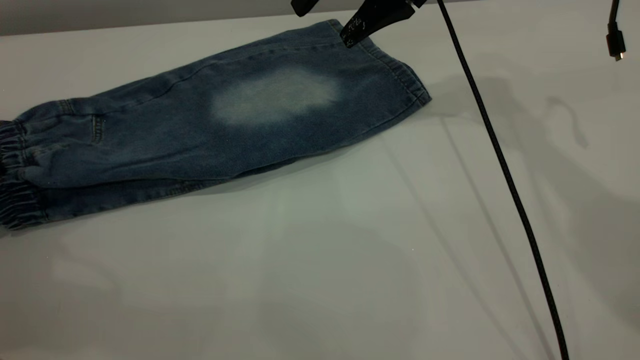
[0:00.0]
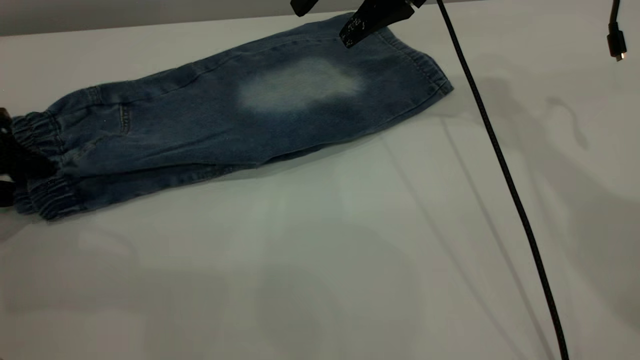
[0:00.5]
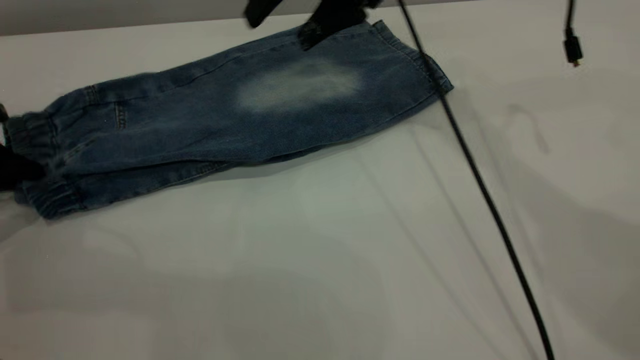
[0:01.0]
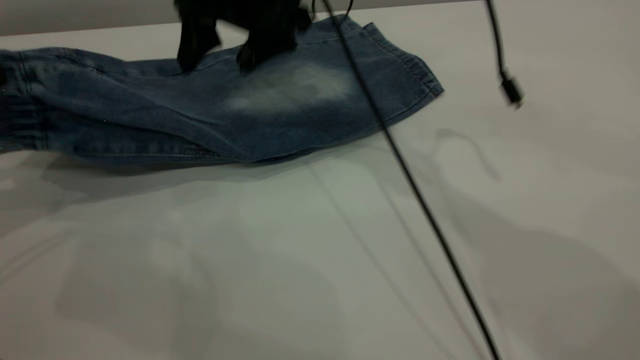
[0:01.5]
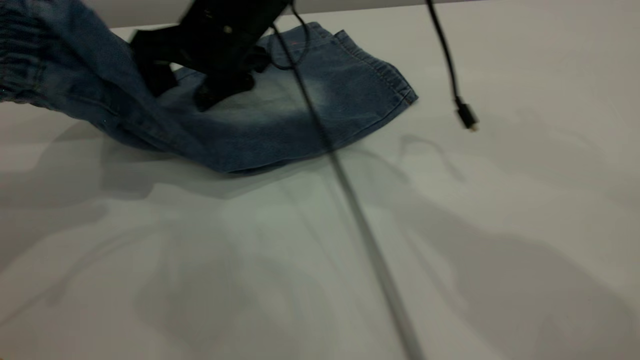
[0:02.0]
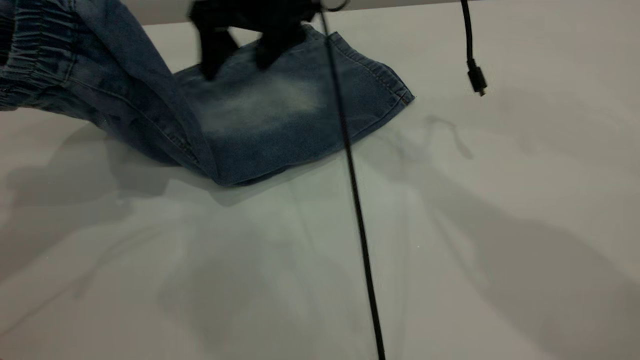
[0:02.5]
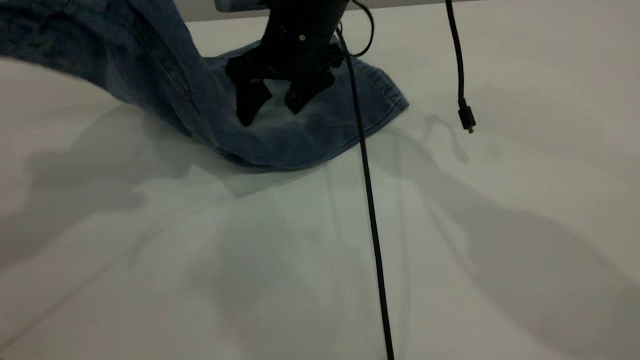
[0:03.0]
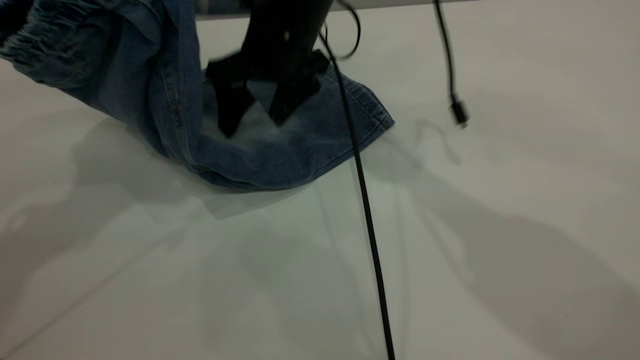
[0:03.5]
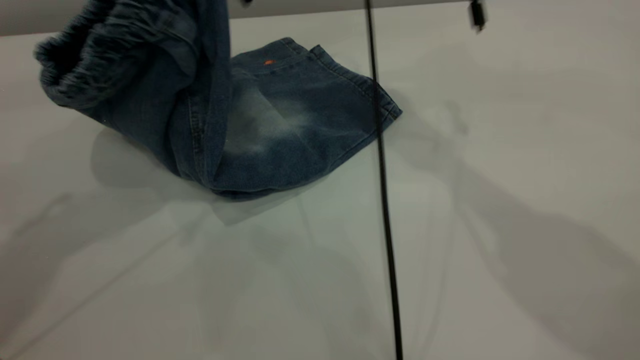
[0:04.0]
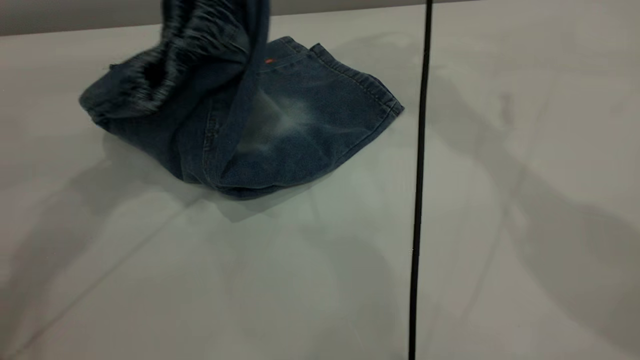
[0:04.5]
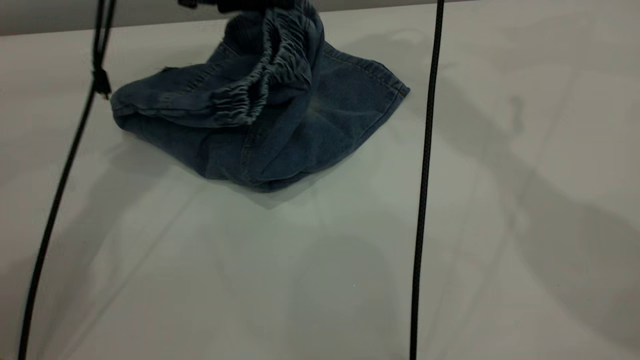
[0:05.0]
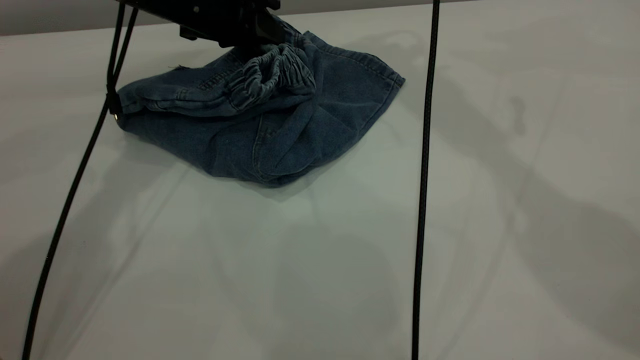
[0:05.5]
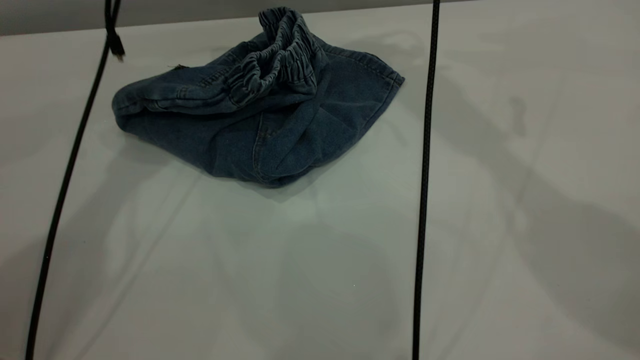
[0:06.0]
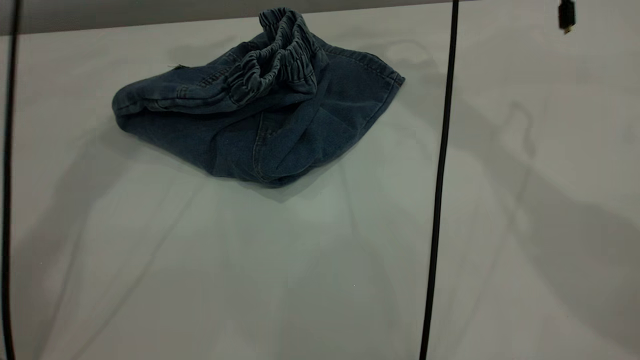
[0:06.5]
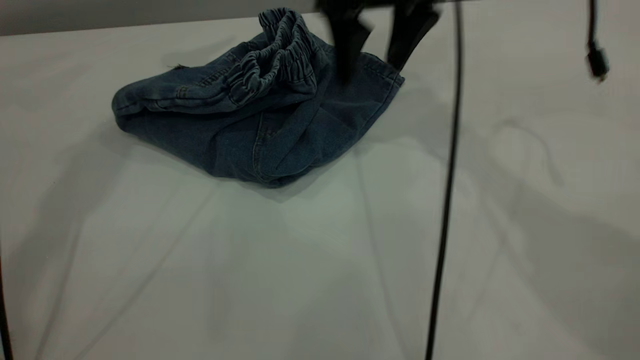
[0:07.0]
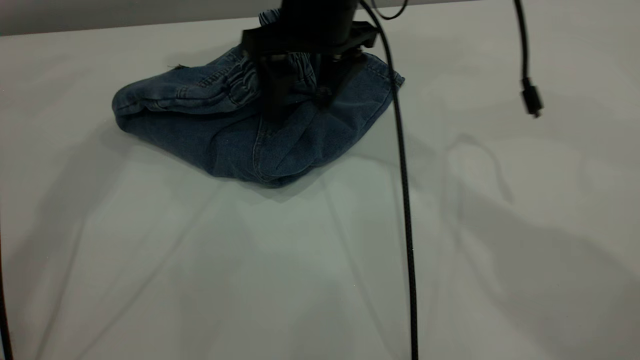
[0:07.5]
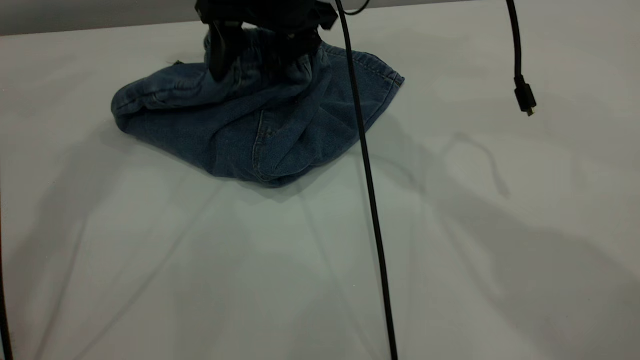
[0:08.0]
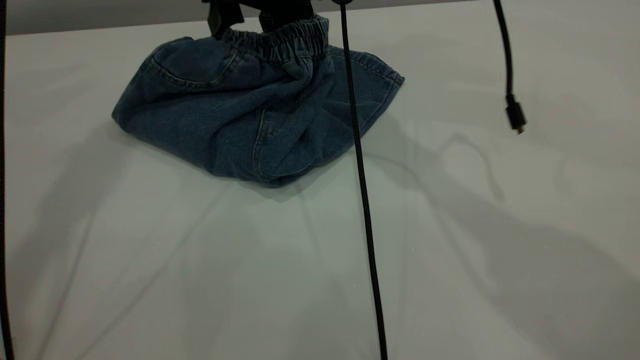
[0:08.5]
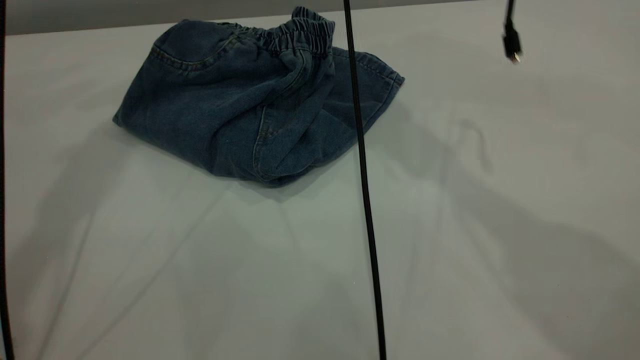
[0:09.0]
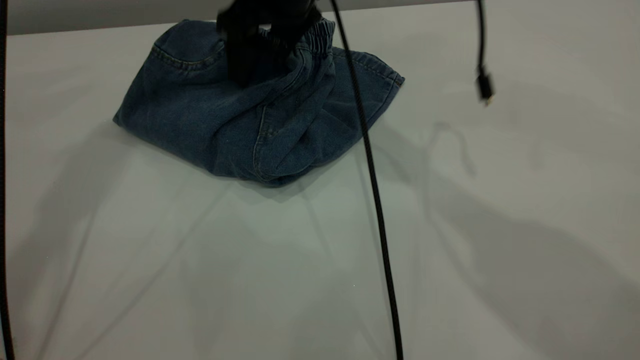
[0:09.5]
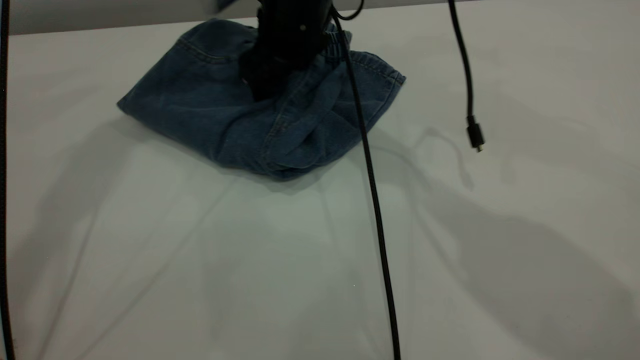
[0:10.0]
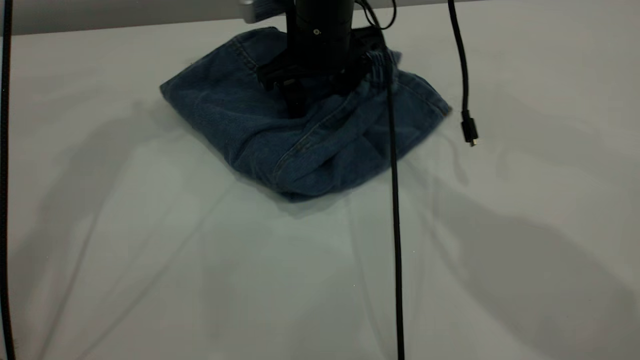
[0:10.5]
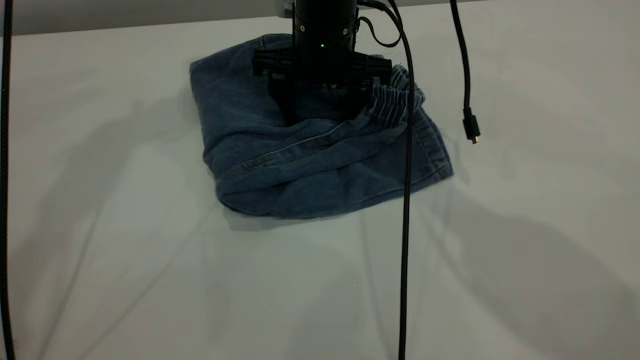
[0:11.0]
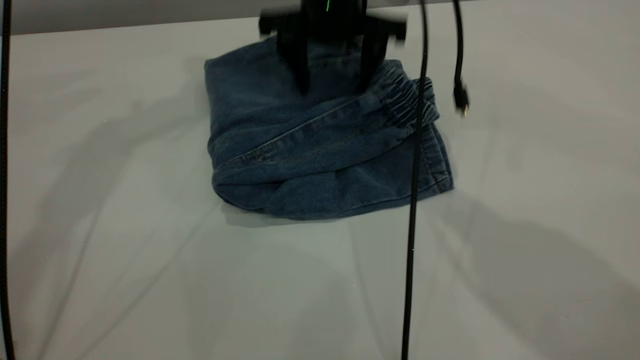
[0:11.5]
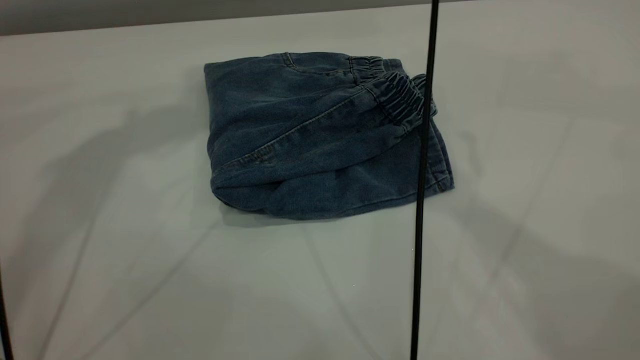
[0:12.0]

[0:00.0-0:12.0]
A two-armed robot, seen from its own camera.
Step, 0:00.0 to 0:06.0: Fold the pants from left to right.
0:00.0 to 0:02.0: The left gripper heads upward and to the right, covering about 20 cm, and closes its fingers. The right gripper shifts some 15 cm to the left.
0:02.0 to 0:04.0: The left gripper is displaced to the right by roughly 10 cm; the right gripper shifts about 15 cm upward, to the right and forward.
0:04.0 to 0:06.0: The right gripper shifts about 10 cm upward and to the right, while the left gripper travels forward and downward by approximately 20 cm, and opens its fingers.
0:06.0 to 0:08.0: The left gripper moves upward, roughly 15 cm. Meanwhile the right gripper is displaced downward, to the left and backward by approximately 20 cm.
0:08.0 to 0:10.0: The right gripper moves downward, approximately 5 cm.
0:10.0 to 0:12.0: The right gripper shifts approximately 20 cm upward. The left gripper shifts by roughly 5 cm.

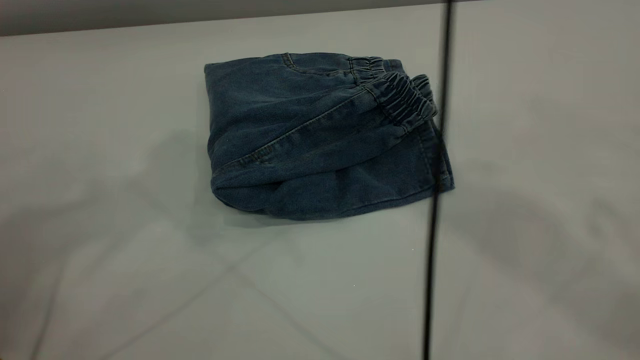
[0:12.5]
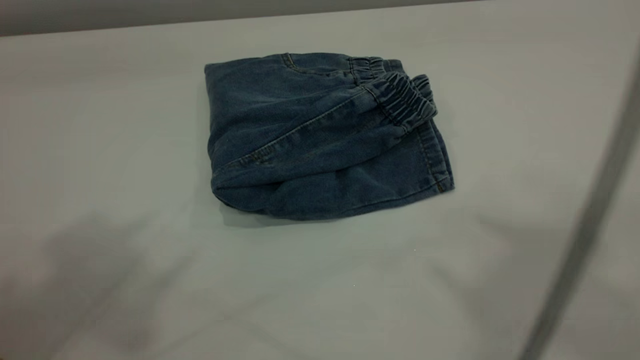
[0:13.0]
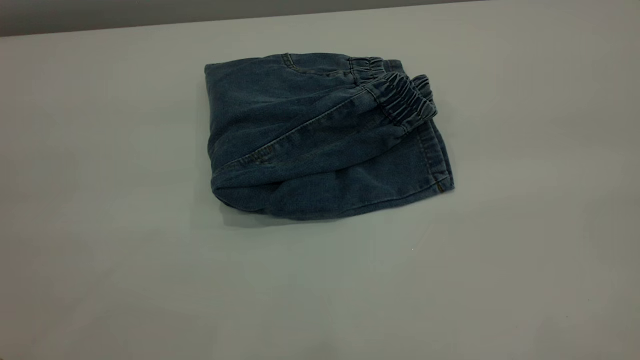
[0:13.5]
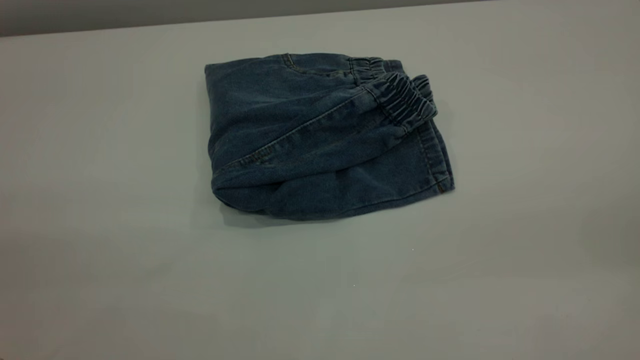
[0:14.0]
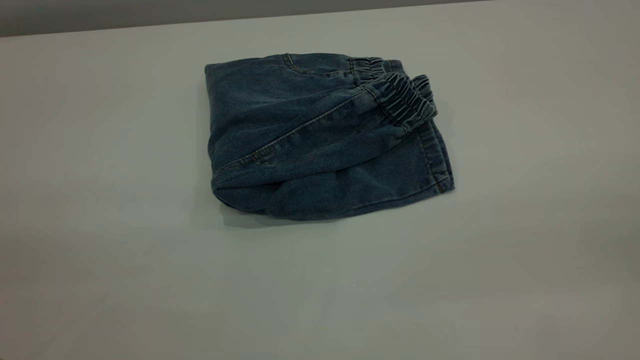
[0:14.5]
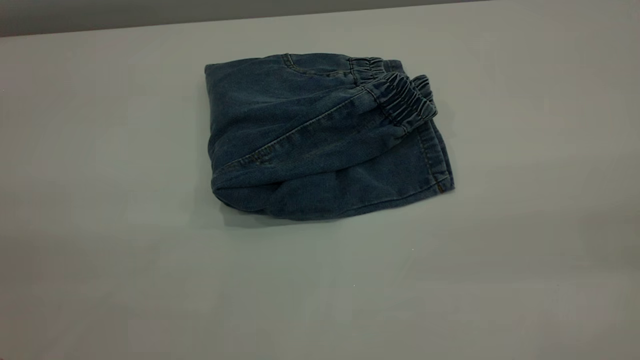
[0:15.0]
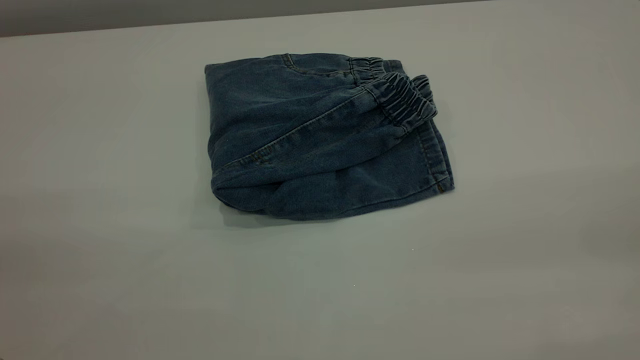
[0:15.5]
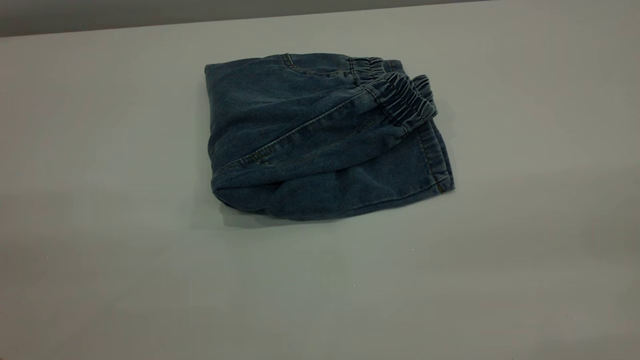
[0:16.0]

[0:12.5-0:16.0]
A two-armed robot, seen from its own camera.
0:12.5 to 0:14.5: The right gripper goes approximately 40 cm backward, downward and to the right.

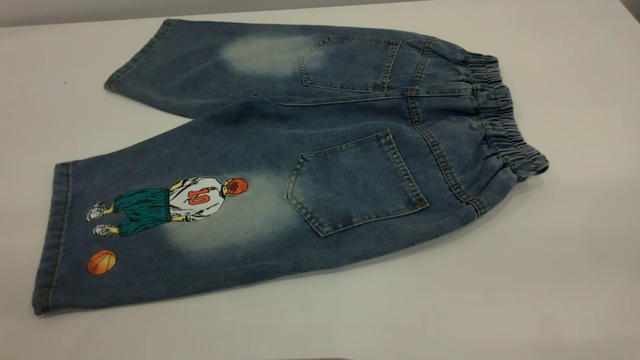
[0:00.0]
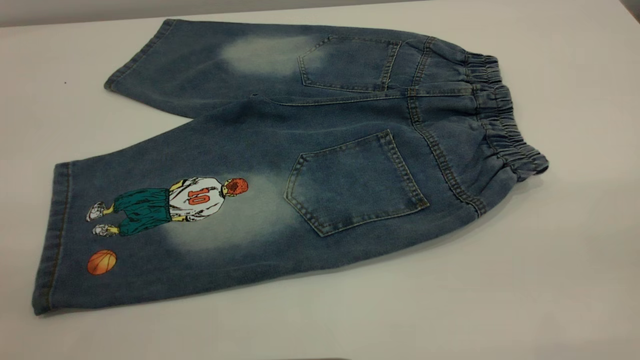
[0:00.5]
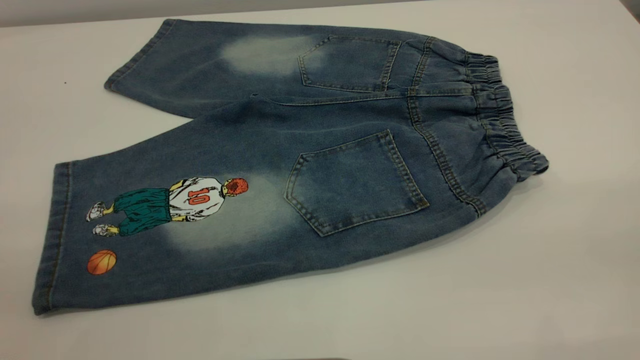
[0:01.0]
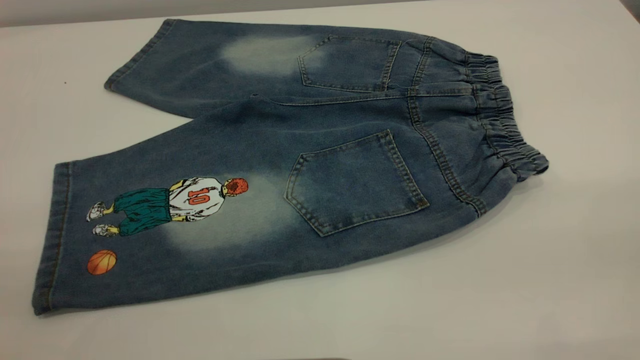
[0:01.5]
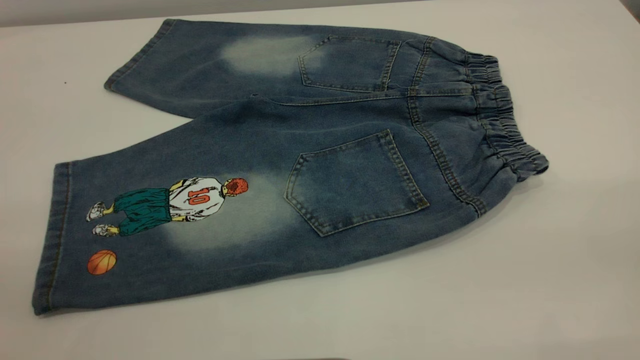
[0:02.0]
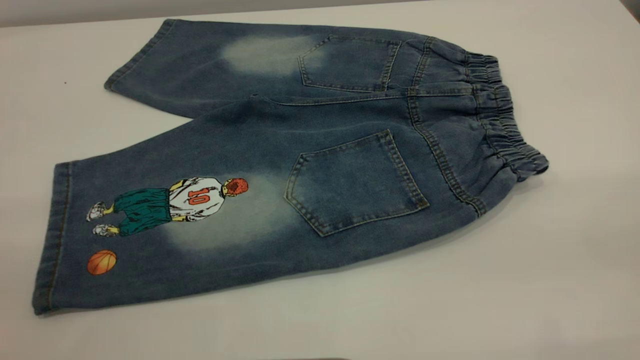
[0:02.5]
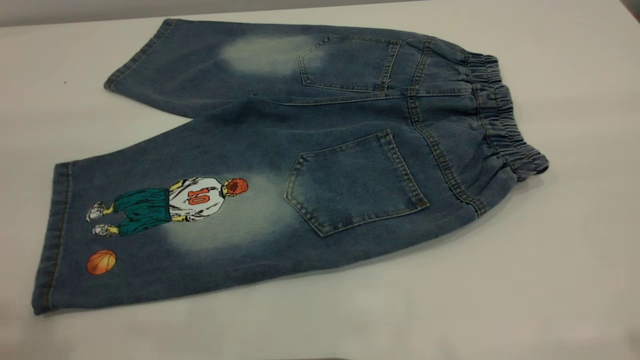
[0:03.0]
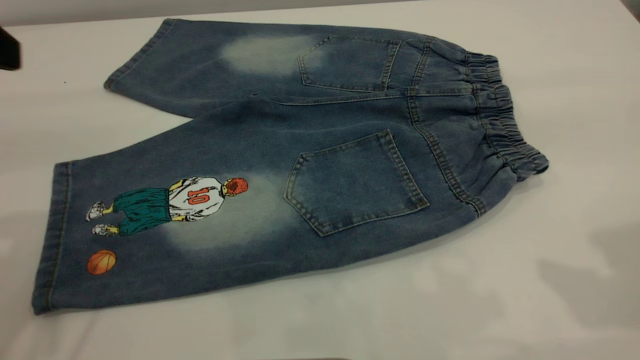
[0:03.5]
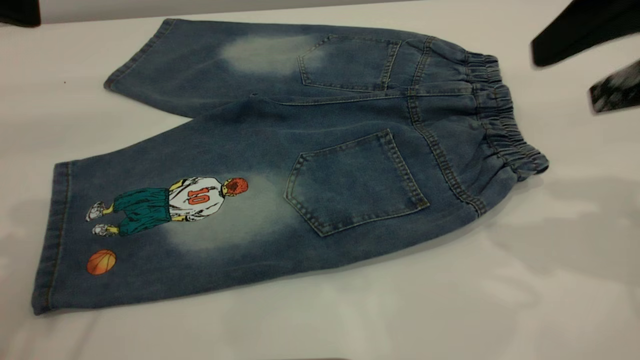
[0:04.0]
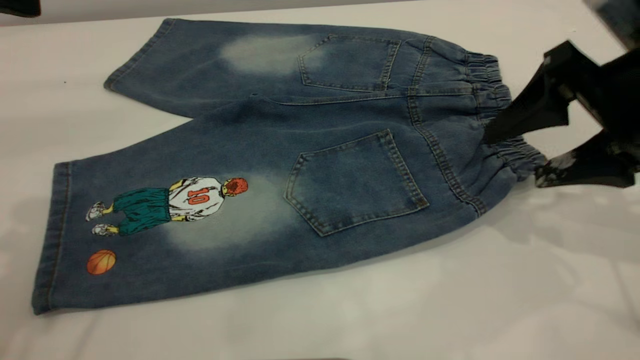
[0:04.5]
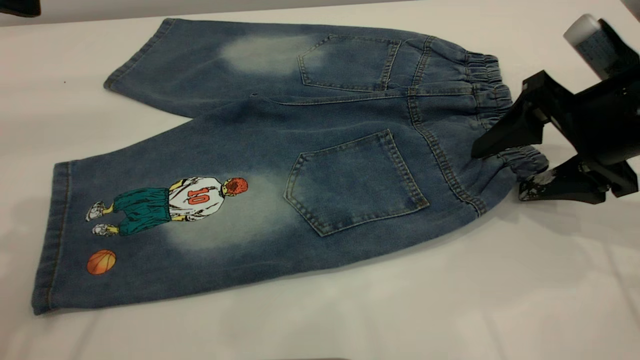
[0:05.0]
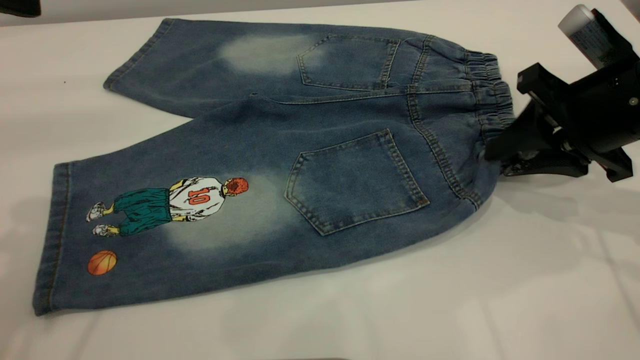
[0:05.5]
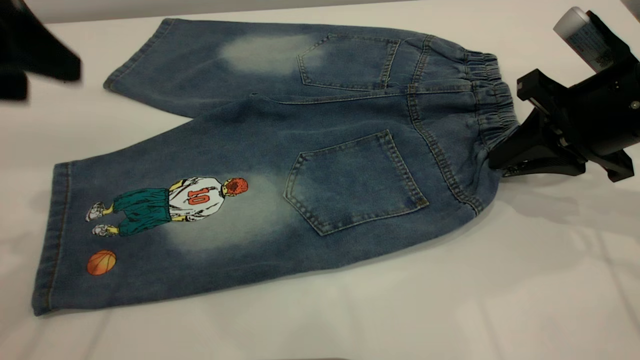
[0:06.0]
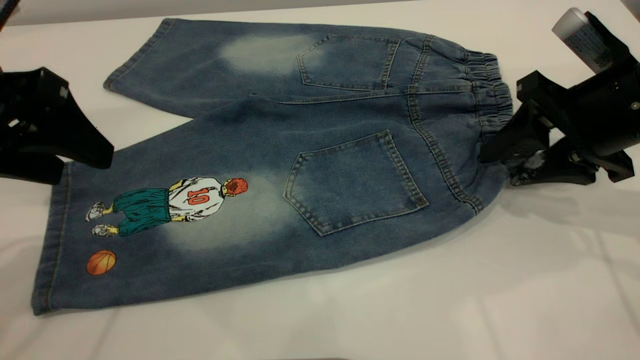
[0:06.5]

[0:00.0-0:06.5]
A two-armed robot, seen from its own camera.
0:00.0 to 0:02.0: The two grippers keep their place.
0:02.0 to 0:04.5: The right gripper moves forward and downward, about 35 cm.
0:04.5 to 0:06.5: The left gripper travels downward by approximately 10 cm. The right gripper closes, then opens again.
